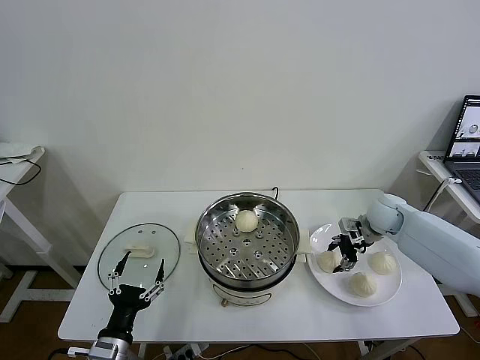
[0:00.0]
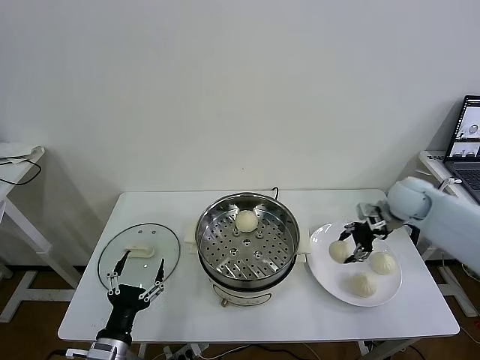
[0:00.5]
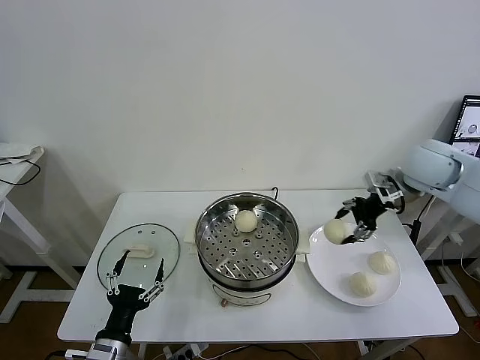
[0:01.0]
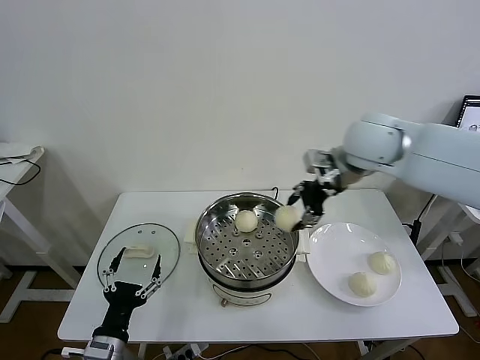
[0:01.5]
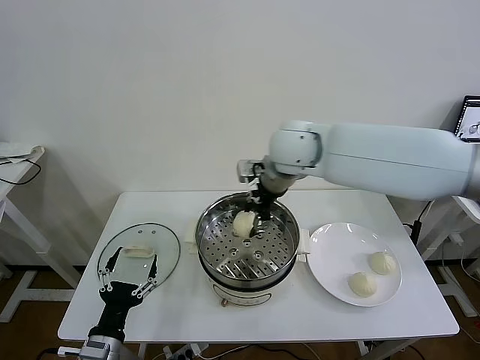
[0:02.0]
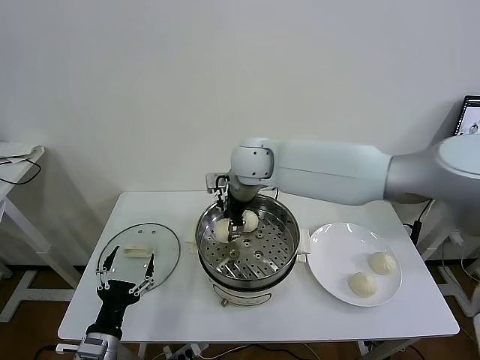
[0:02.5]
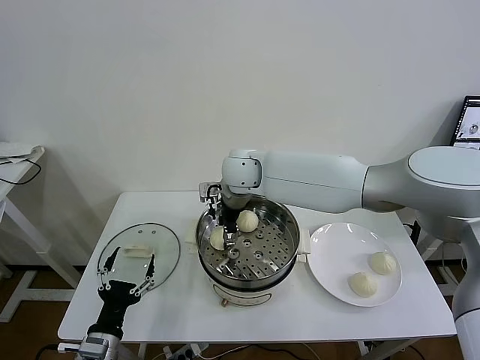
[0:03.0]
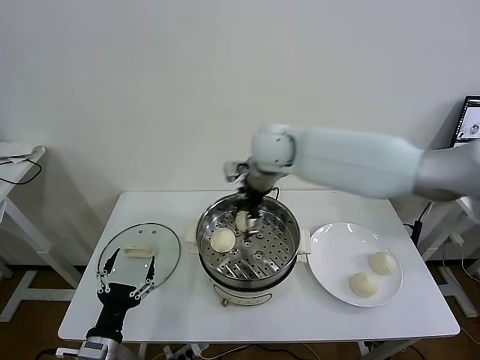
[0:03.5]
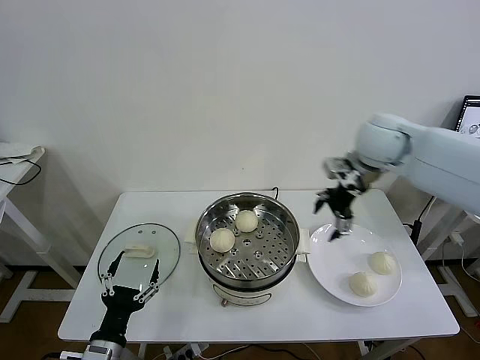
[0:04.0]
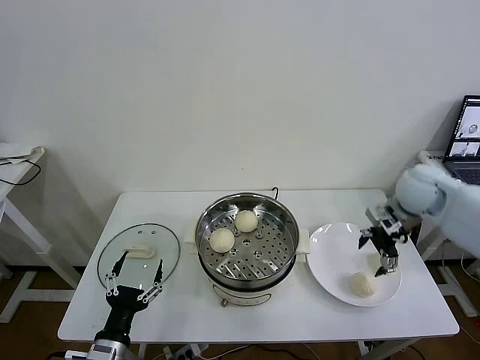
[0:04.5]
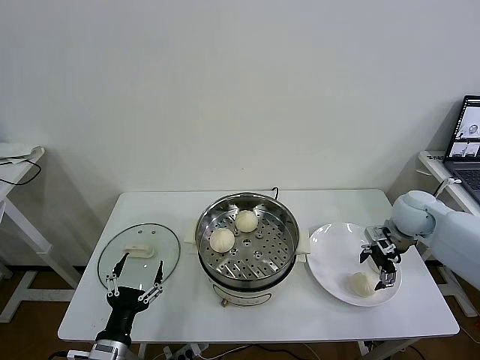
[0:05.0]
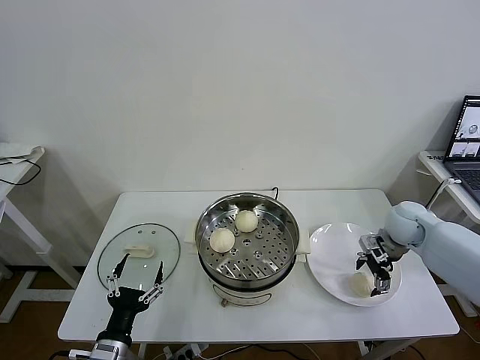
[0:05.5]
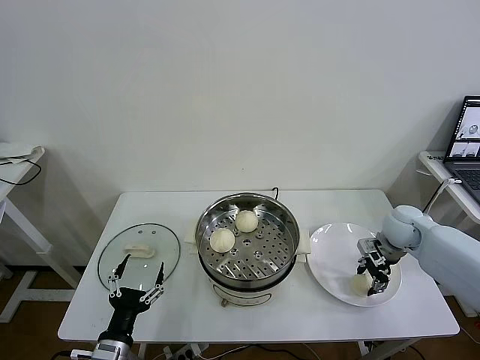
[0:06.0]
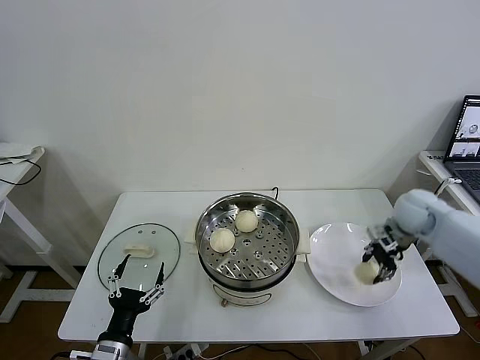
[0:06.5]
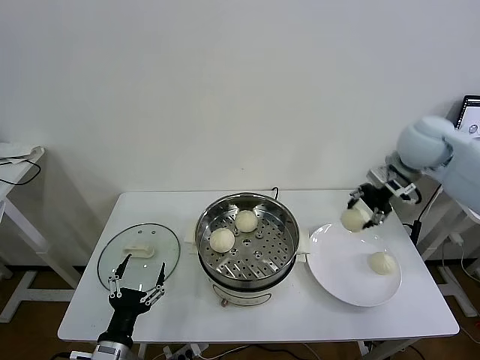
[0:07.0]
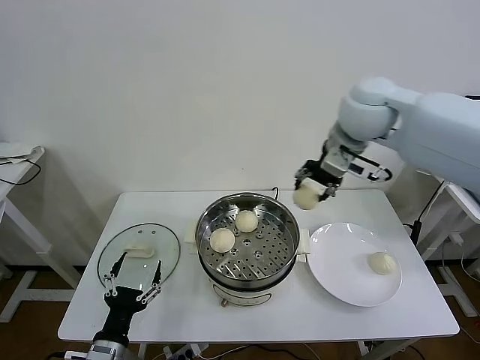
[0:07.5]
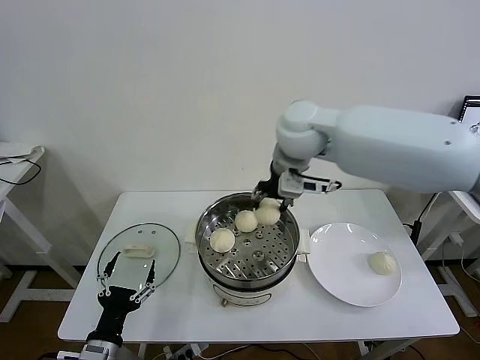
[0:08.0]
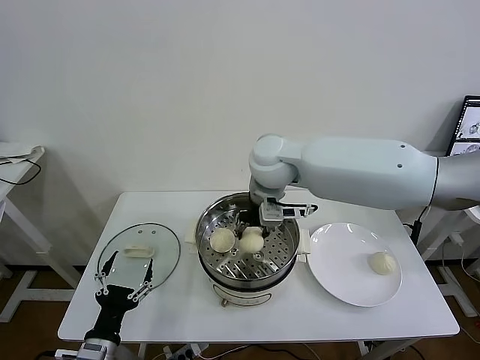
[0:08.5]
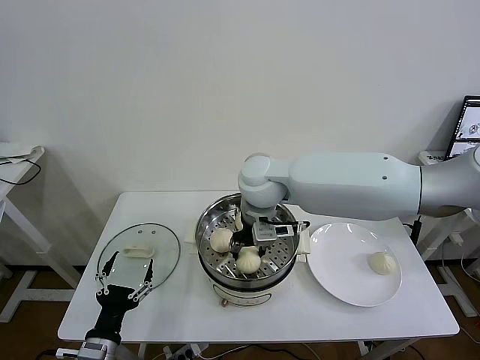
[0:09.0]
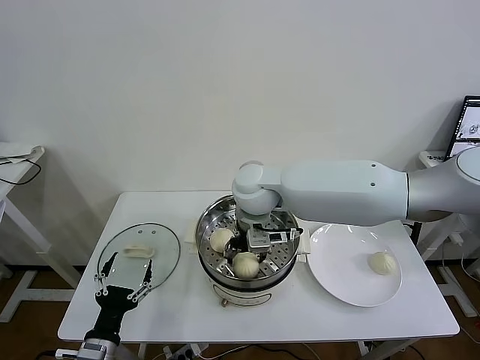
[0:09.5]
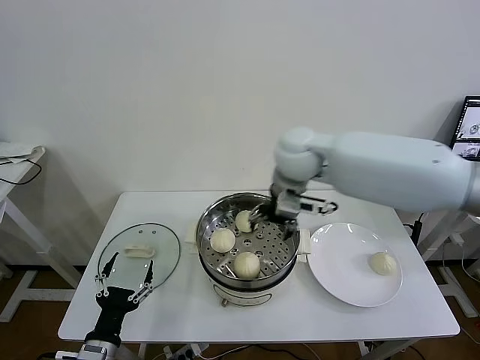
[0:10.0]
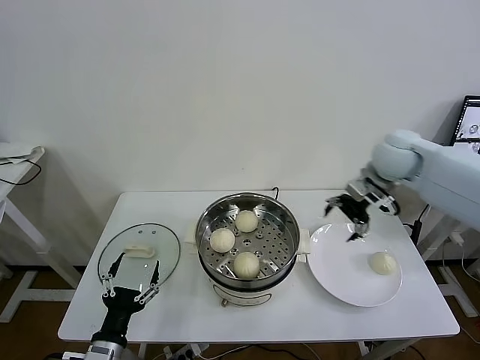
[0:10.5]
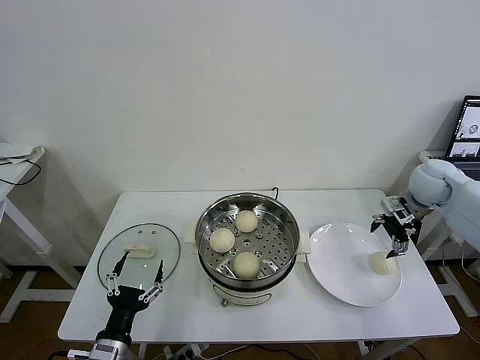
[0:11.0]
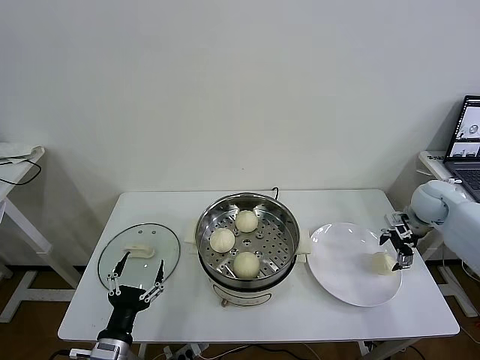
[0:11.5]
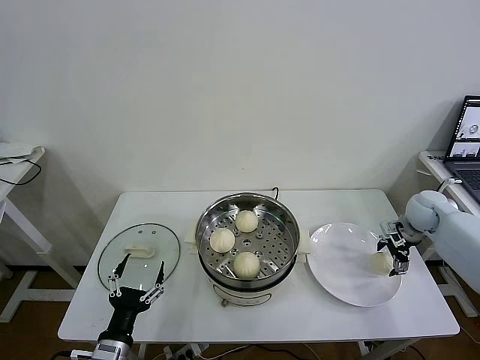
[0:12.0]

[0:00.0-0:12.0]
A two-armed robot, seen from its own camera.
Task of the whole recording: take steamed baozi put them in steamer then cover it.
Step, 0.0 to 3.0 s: Place the baozi on the steamer with right gripper.
Step, 3.5 to 6.0 s: Grasp the baozi in the plate with right gripper.
Step, 6.5 to 9.5 s: Place the baozi on the steamer with right gripper.
0.0 to 2.0 s: The right gripper travels to the left and upward by some 35 cm.
2.0 to 4.0 s: The right gripper shifts some 20 cm to the right, and opens.
4.0 to 6.0 s: The right gripper shifts some 25 cm downward and to the right, and closes.
6.0 to 8.0 s: The right gripper travels to the left and upward by approximately 40 cm.
8.0 to 10.0 s: The right gripper opens its fingers.
10.0 to 12.0 s: The right gripper heads to the right and downward, covering some 40 cm.

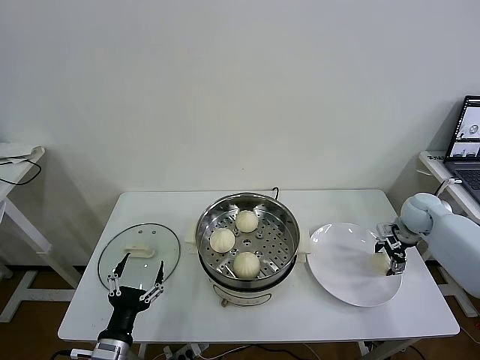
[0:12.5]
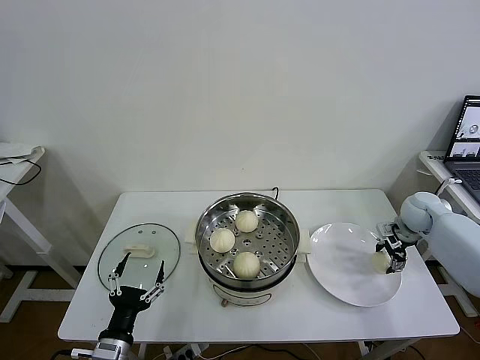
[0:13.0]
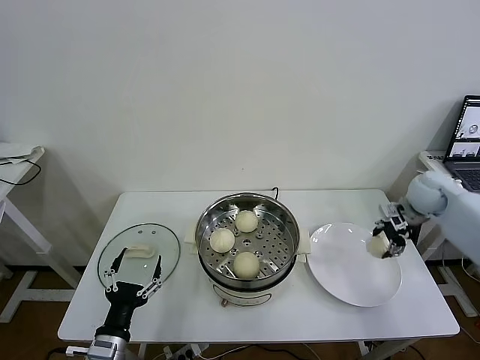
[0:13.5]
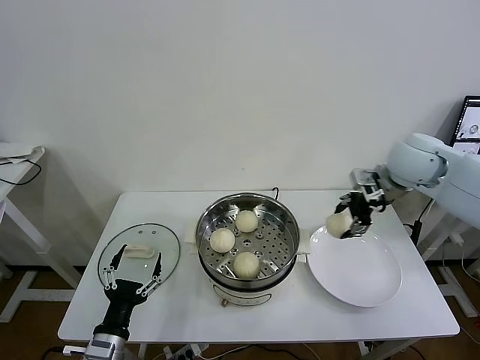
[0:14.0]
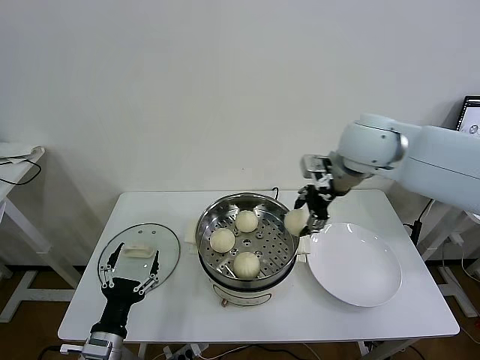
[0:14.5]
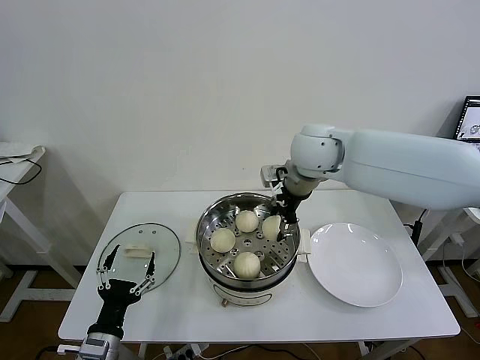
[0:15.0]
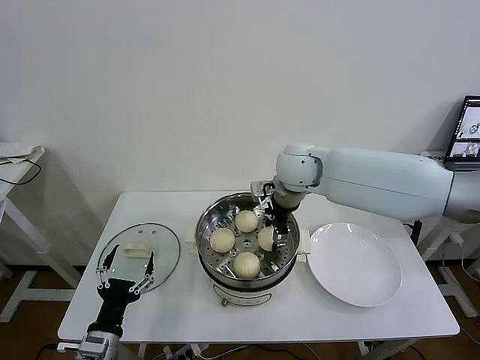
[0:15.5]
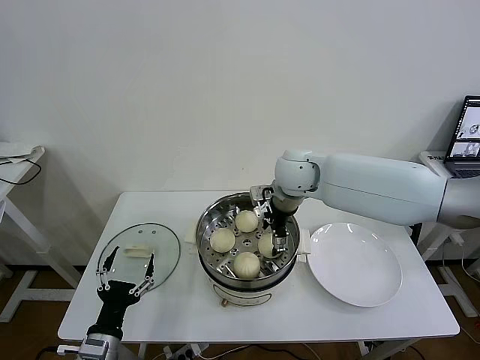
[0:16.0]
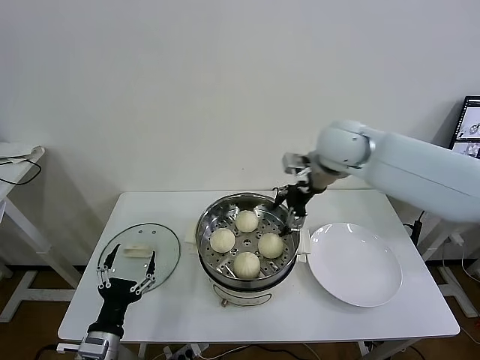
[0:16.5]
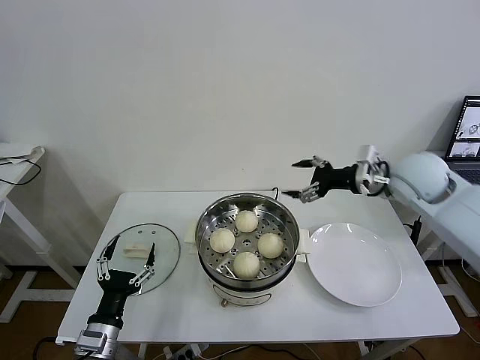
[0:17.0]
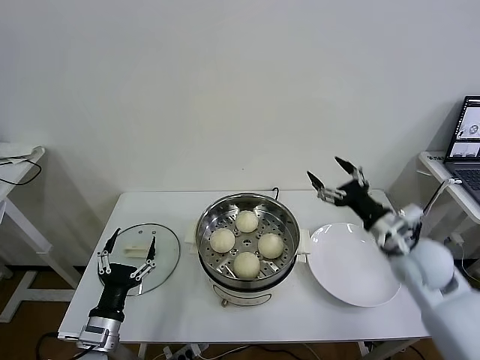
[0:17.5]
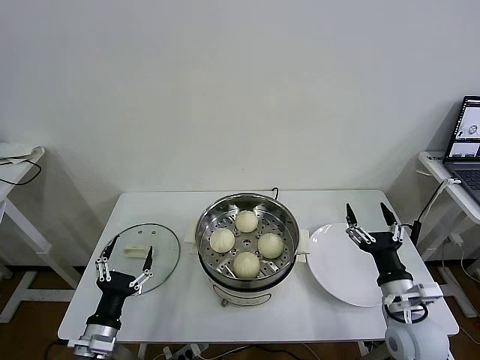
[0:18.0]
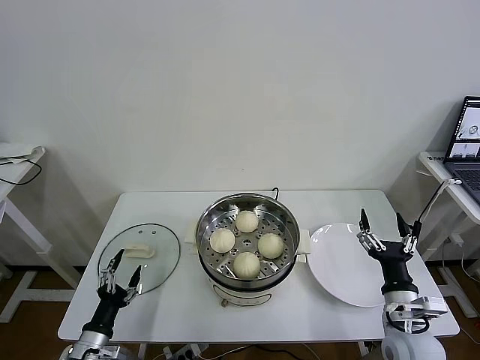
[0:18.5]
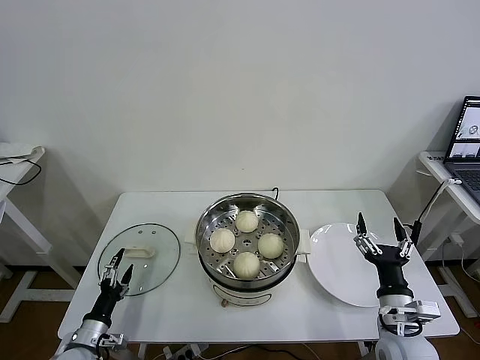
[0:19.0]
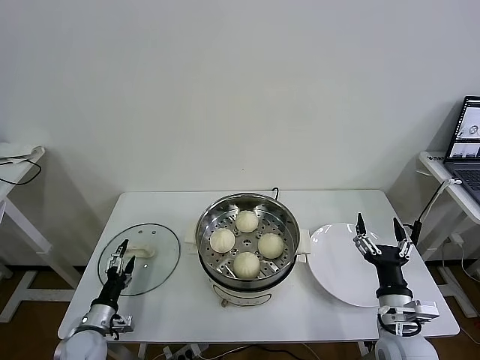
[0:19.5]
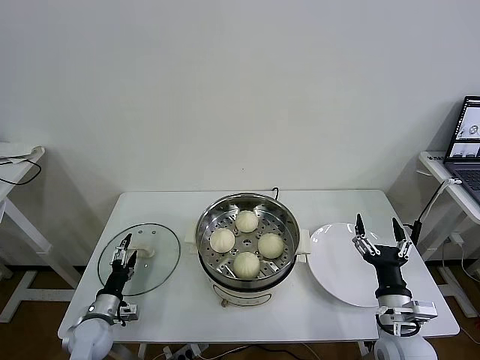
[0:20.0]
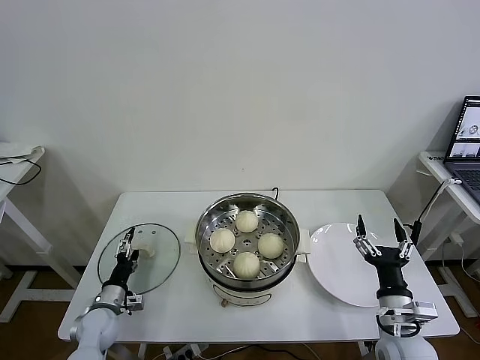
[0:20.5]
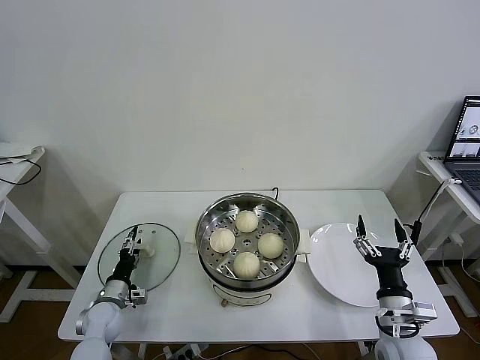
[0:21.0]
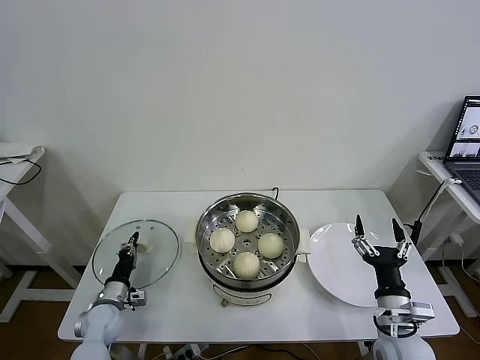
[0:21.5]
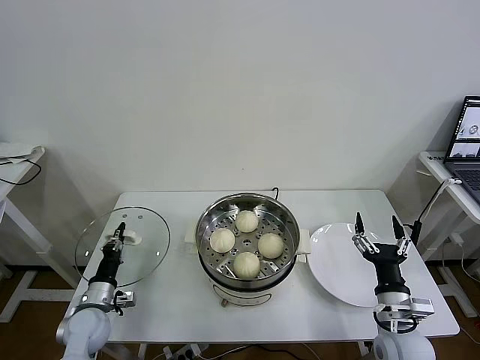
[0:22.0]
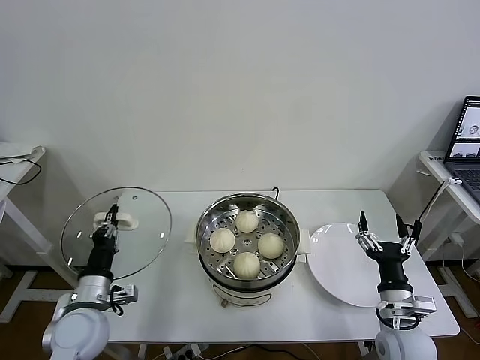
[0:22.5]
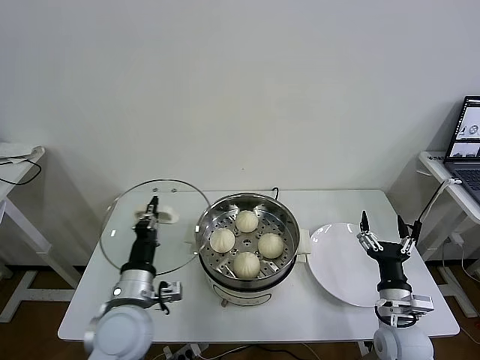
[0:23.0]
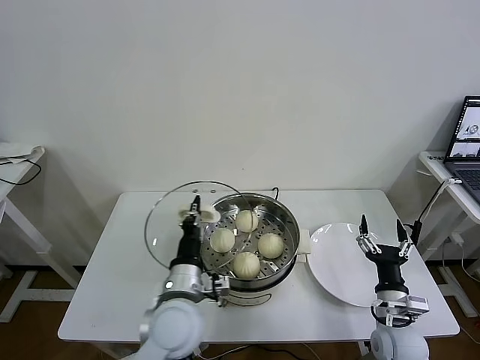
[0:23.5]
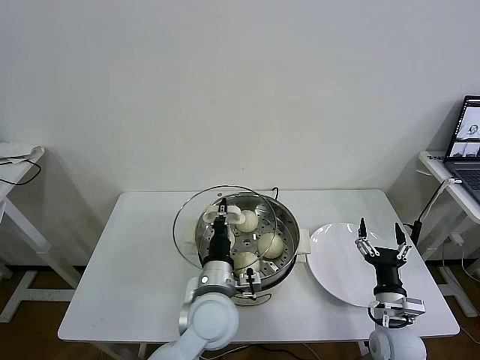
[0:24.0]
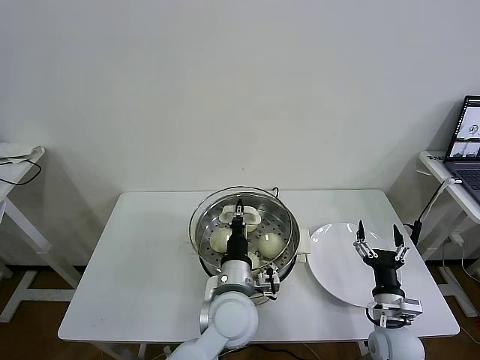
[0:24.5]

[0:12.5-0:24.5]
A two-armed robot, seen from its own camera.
Task of the whole recording: take steamed baozi put them in steamer then cover it.
Step, 13.5 to 16.0 s: Place the baozi on the steamer with right gripper.
Step, 16.5 to 21.5 s: Grasp the pot lid with left gripper.
12.5 to 14.5 s: The right gripper is displaced to the left and upward by some 35 cm, and closes up.
14.5 to 16.5 s: The right gripper reaches approximately 10 cm downward, then returns, and opens its fingers.
16.5 to 18.5 s: The left gripper goes approximately 10 cm downward and to the left, while the right gripper moves backward, downward and to the right, some 40 cm.
18.5 to 20.5 s: The left gripper travels forward and downward by about 15 cm.
20.5 to 22.5 s: The left gripper goes some 15 cm upward, and closes its fingers.
22.5 to 24.5 s: The left gripper heads to the right, covering some 30 cm.

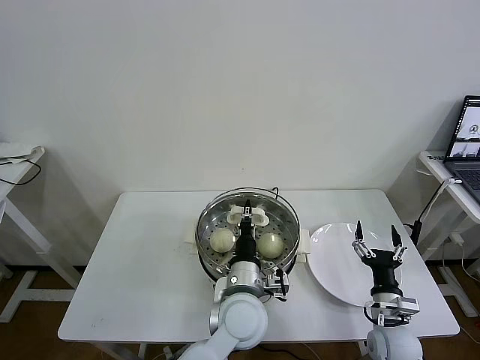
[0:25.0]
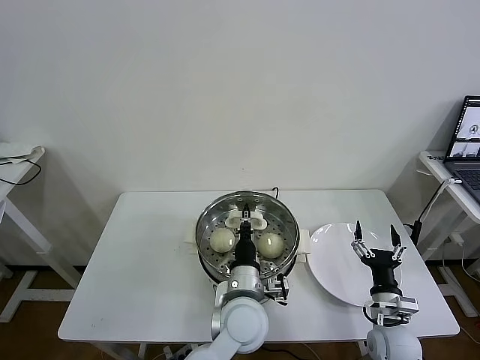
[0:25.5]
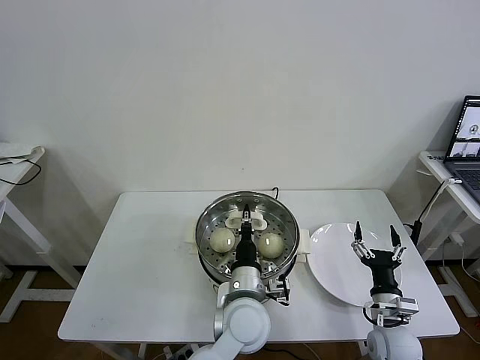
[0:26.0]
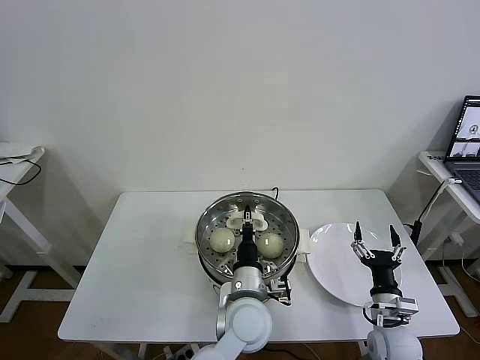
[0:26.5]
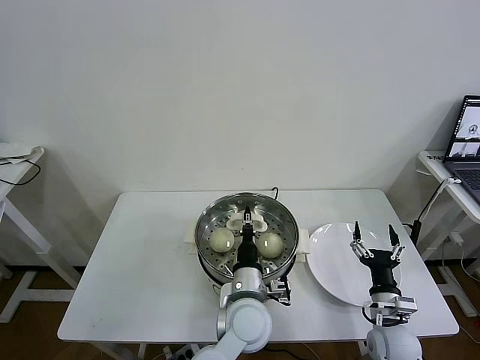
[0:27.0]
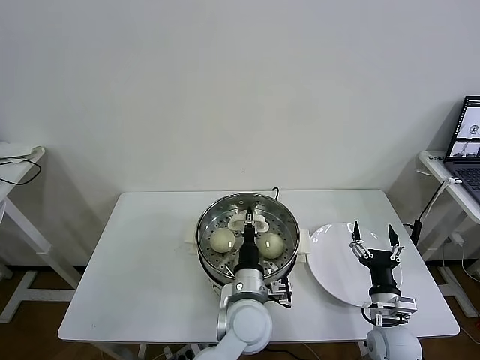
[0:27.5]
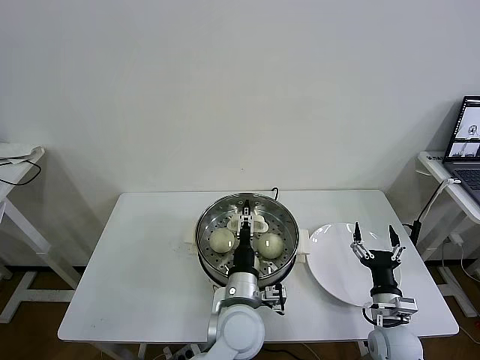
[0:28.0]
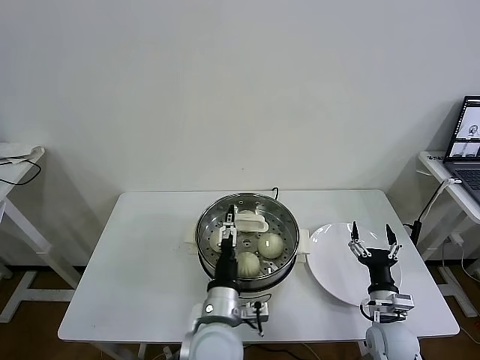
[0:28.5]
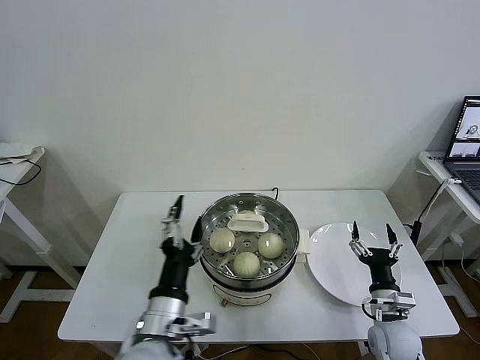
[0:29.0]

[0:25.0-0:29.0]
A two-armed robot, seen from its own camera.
Task of the whole recording: take steamed baozi put them in steamer then cover it.
25.0 to 27.0 s: The grippers stay close to where they were, moving slightly.
27.0 to 29.0 s: The left gripper travels to the left, backward and upward by approximately 15 cm, and opens its fingers.
